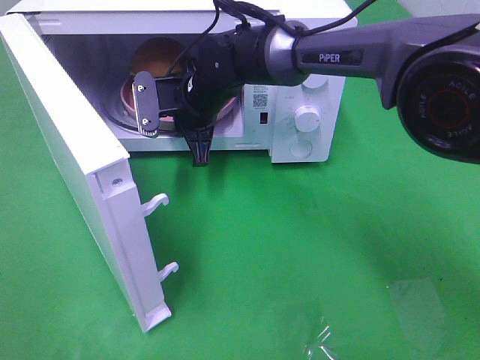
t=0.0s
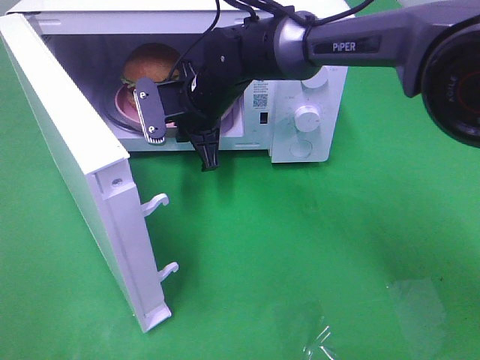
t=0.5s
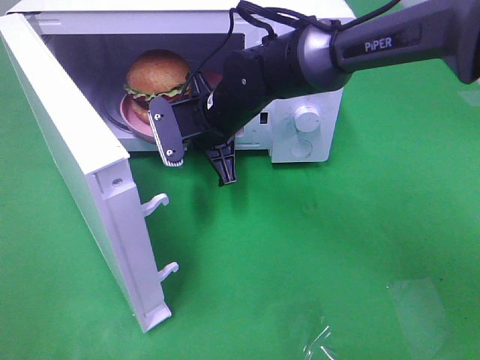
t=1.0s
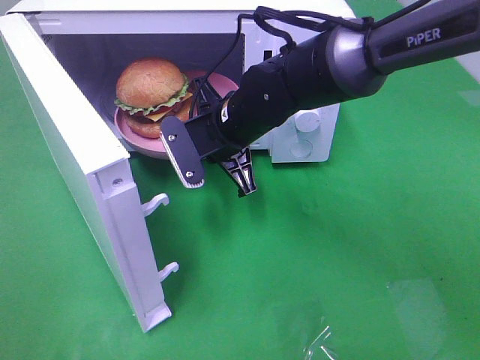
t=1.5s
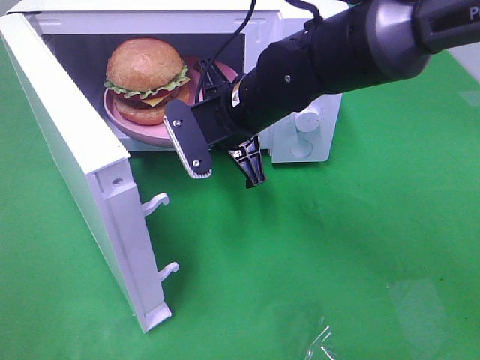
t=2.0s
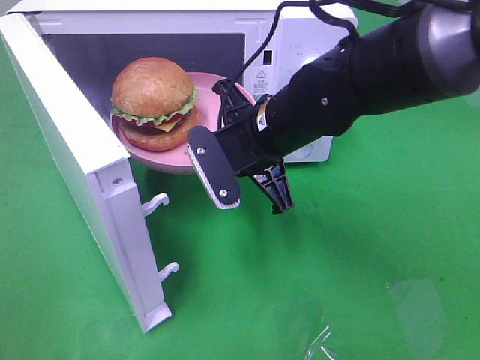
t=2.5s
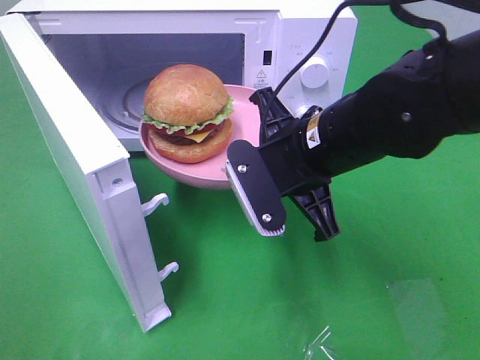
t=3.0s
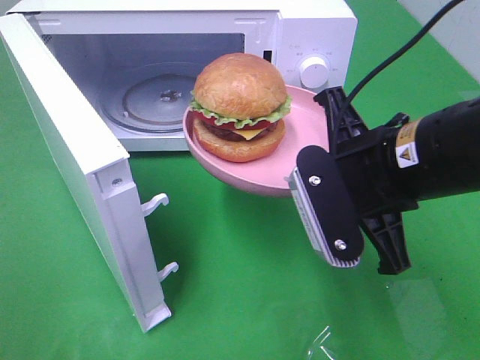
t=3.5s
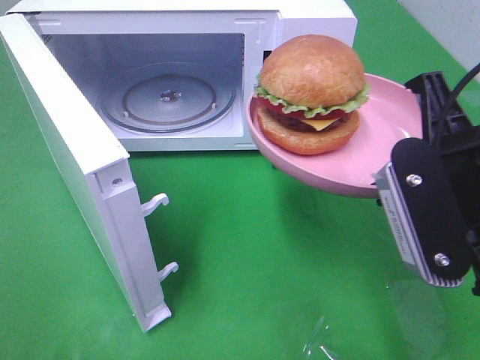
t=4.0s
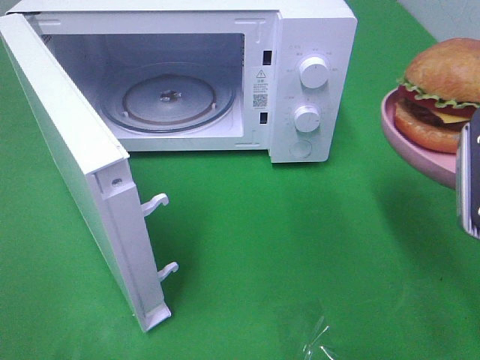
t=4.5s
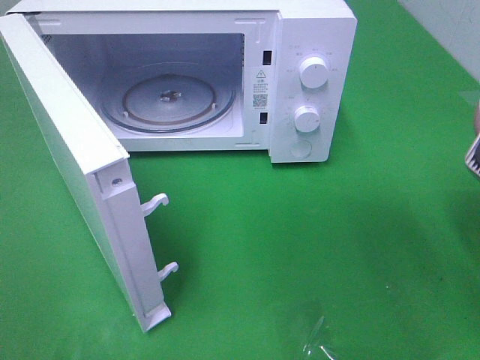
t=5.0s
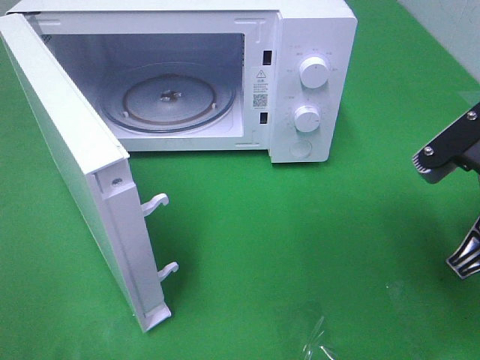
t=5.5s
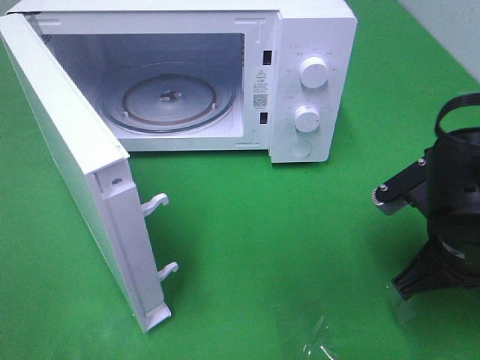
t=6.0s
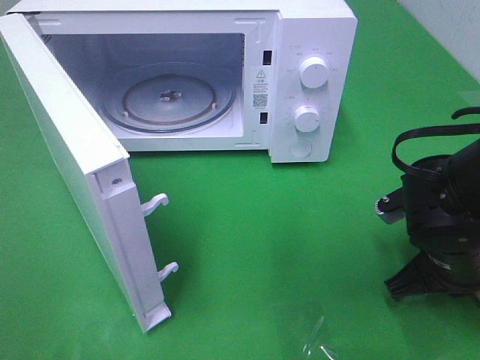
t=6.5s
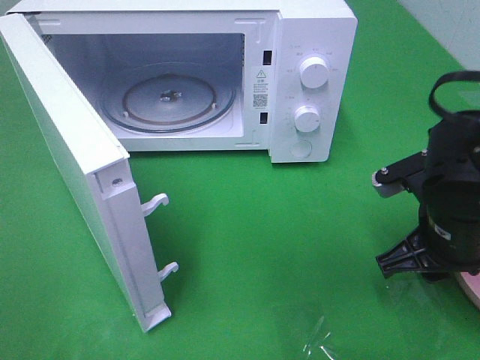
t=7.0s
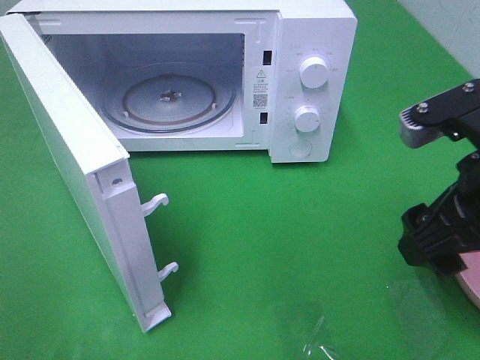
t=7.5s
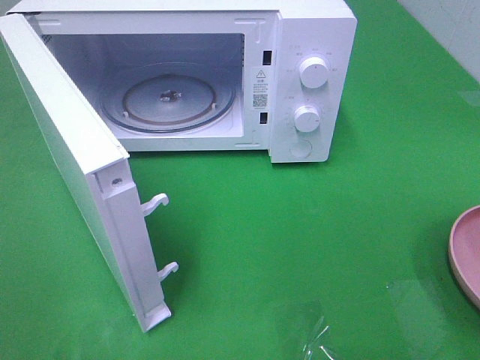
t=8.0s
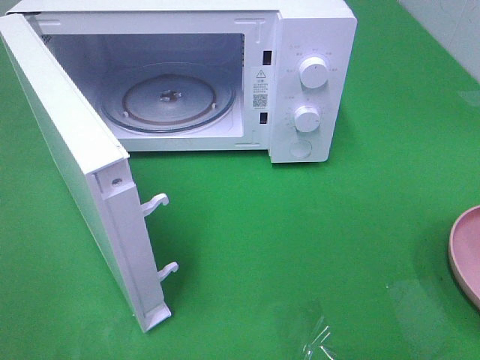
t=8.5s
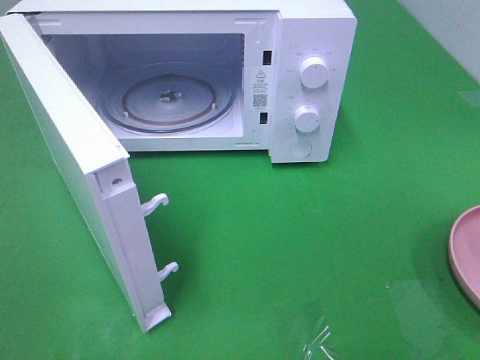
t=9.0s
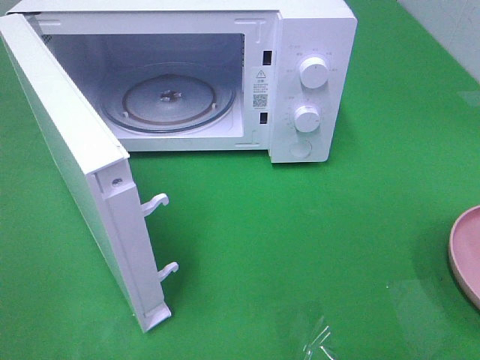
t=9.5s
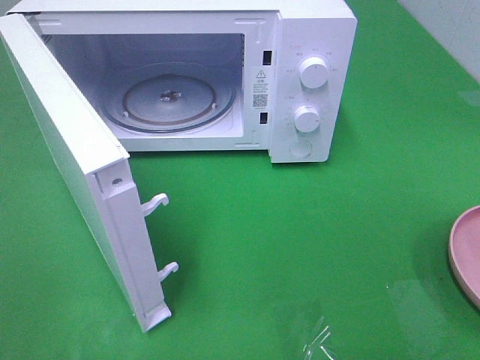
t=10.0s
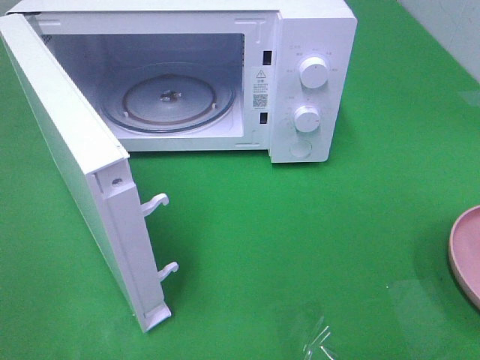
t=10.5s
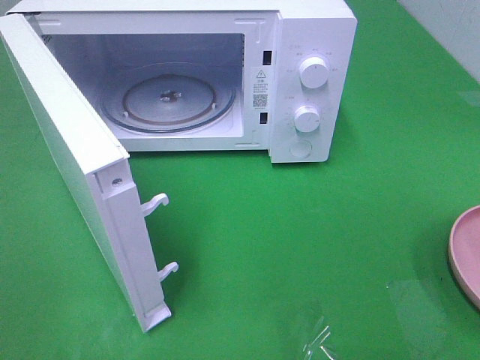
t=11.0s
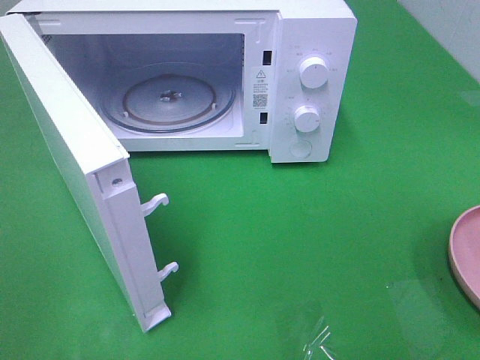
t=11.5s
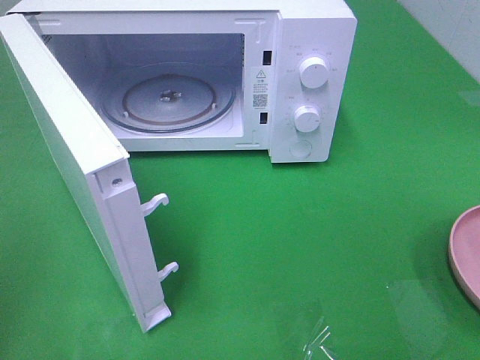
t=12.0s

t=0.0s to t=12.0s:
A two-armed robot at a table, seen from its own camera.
Task of the whole recording: Heat the burger.
Step, t=0.0s to t=7.5s: Right hand: place the plate on the table.
t=0.0s to t=2.0s: The right gripper shifts about 10 cm backward and to the right.
t=2.0s to t=4.0s: The right gripper goes about 25 cm backward, to the right and upward.
t=4.0s to t=6.0s: The right gripper shifts approximately 10 cm downward.
t=6.0s to t=8.0s: The right gripper goes some 20 cm upward and backward, and opens.

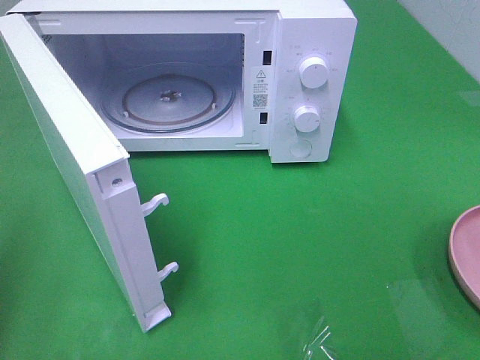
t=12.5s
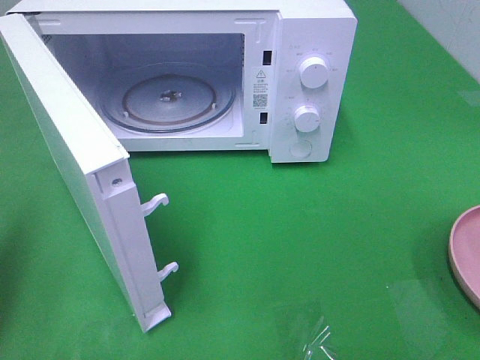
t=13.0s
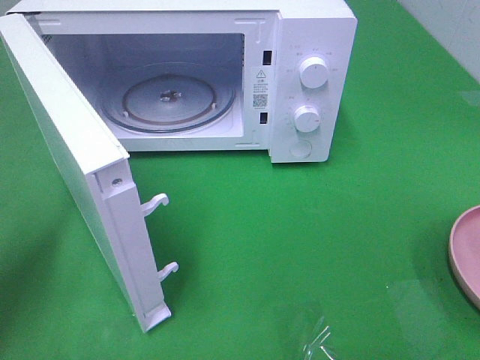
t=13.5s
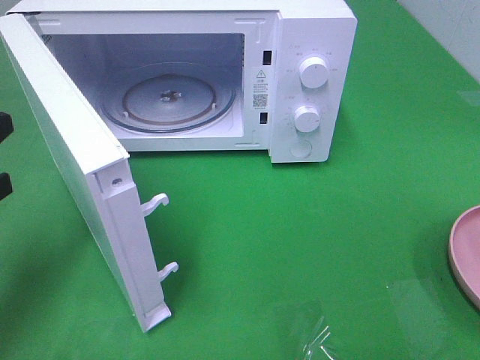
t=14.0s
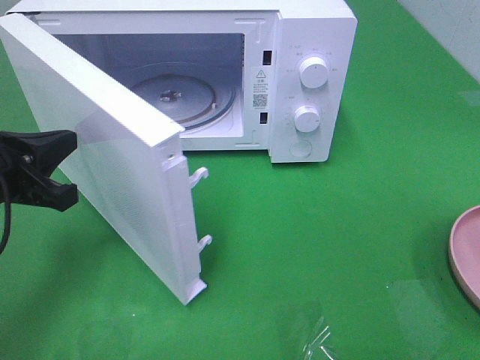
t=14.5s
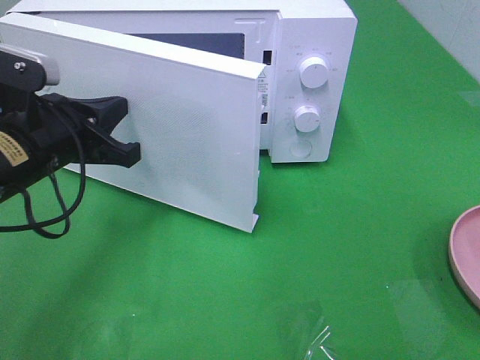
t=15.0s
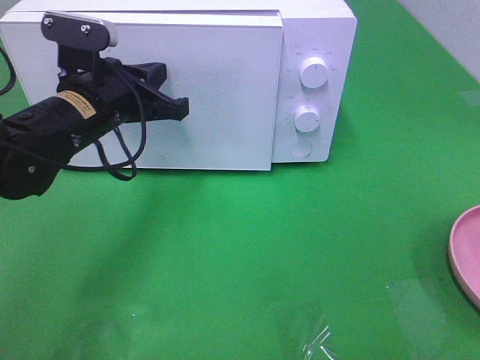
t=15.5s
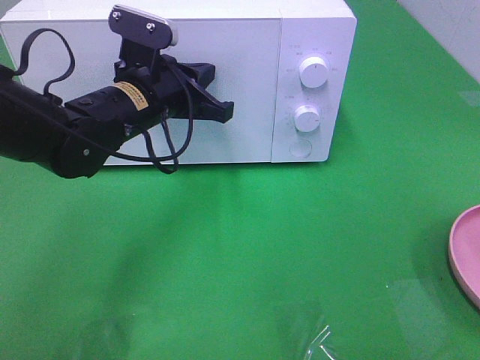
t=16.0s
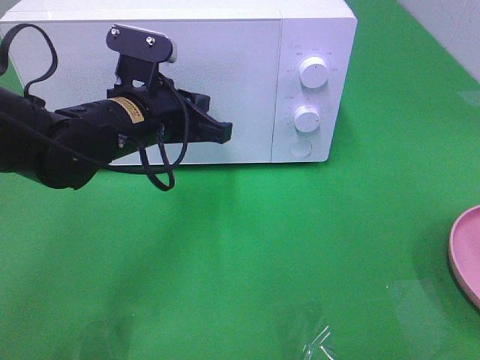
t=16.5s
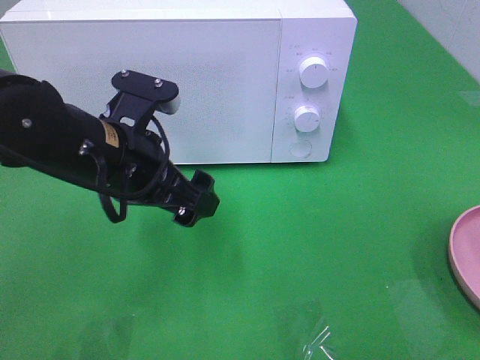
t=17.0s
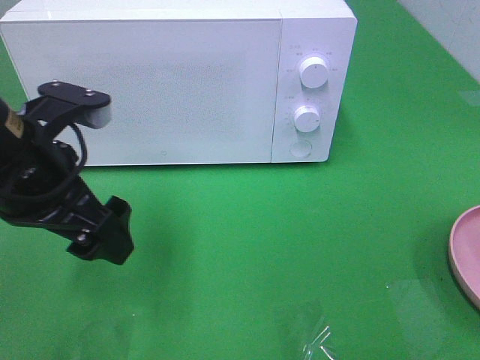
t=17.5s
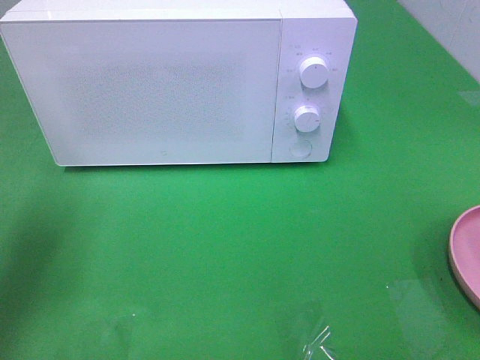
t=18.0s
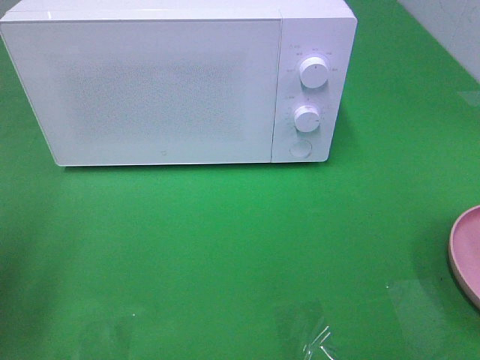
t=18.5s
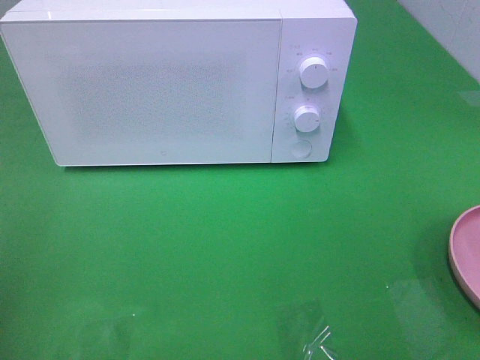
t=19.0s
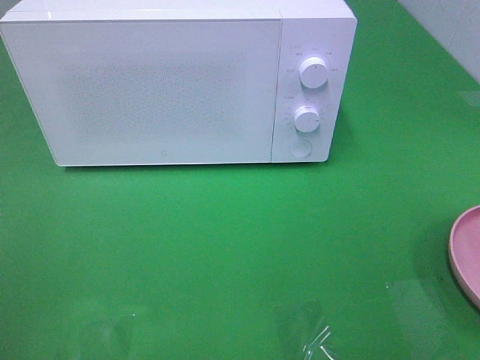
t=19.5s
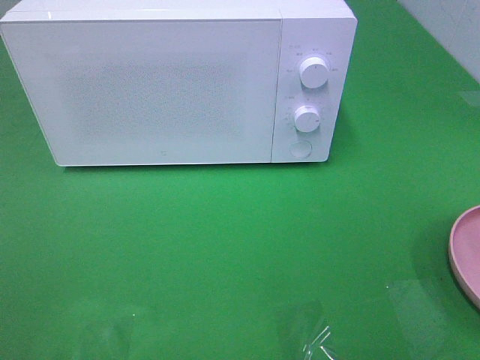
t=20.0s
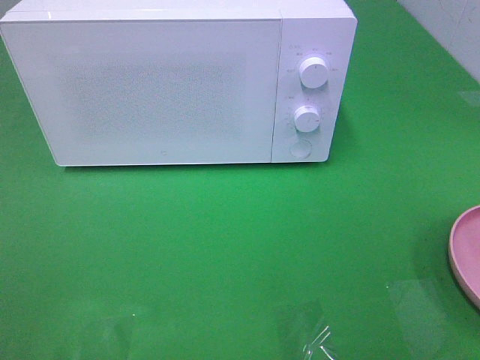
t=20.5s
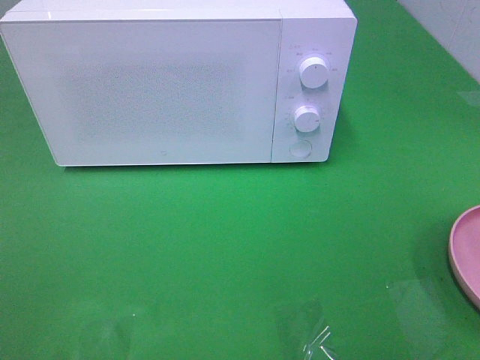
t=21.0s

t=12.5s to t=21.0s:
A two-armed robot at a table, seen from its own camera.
Task of the whole recording: Heat the burger.
Step, t=12.5s to t=16.5s: Left hand: close the microwave door.
t=12.5s to t=14.5s: The left gripper travels forward, downward and to the right by about 20 cm.
t=14.5s to t=16.5s: The left gripper is displaced to the right and forward by some 15 cm.
t=16.5s to t=19.0s: The left gripper moves to the left, backward and upward, some 35 cm, and opens.
